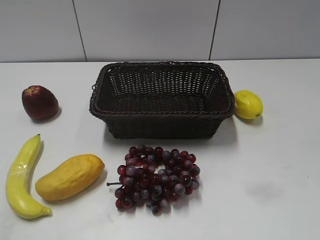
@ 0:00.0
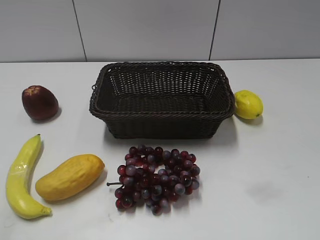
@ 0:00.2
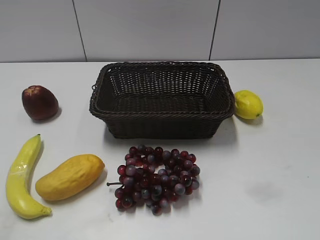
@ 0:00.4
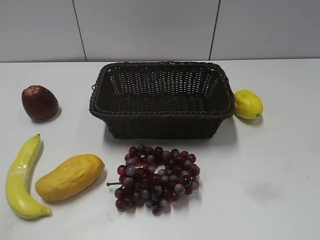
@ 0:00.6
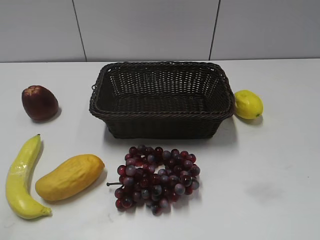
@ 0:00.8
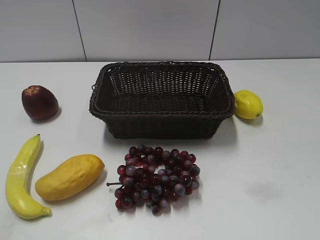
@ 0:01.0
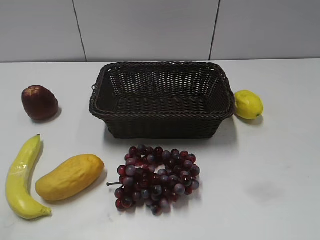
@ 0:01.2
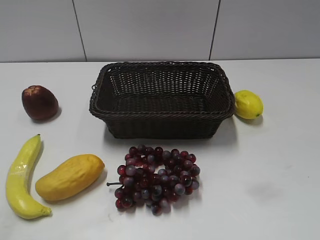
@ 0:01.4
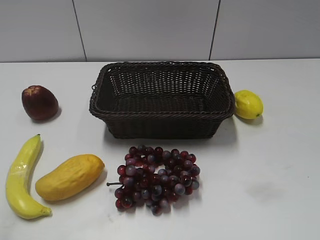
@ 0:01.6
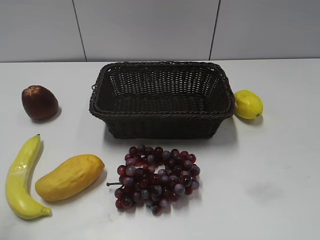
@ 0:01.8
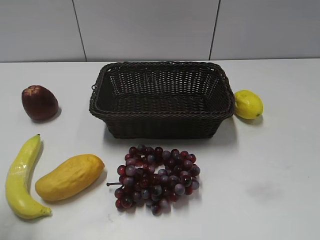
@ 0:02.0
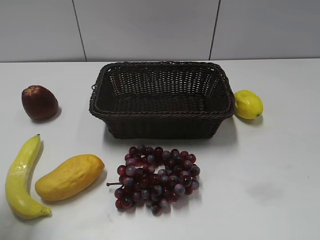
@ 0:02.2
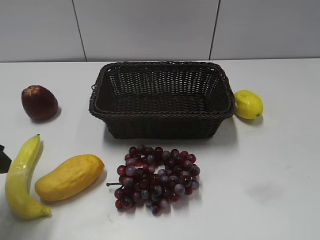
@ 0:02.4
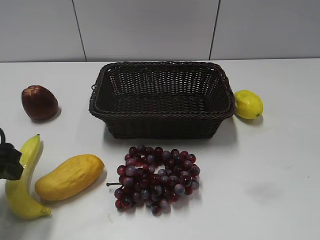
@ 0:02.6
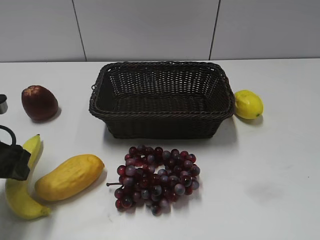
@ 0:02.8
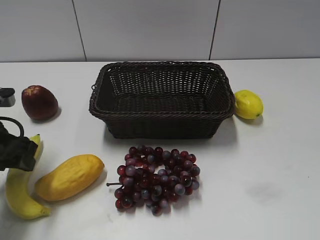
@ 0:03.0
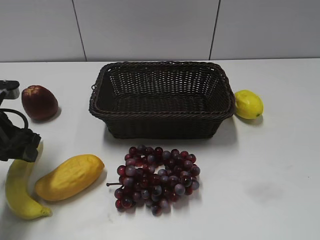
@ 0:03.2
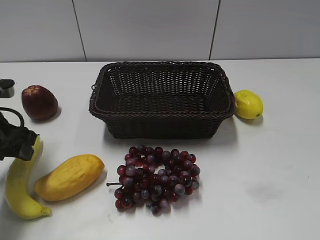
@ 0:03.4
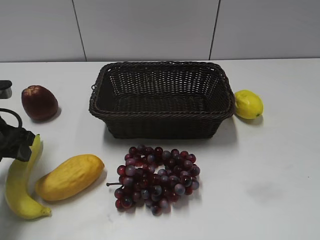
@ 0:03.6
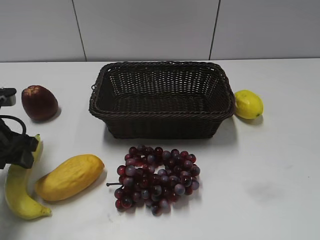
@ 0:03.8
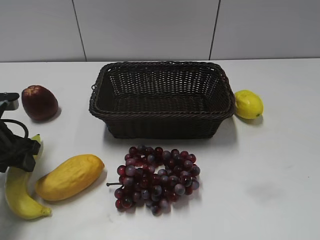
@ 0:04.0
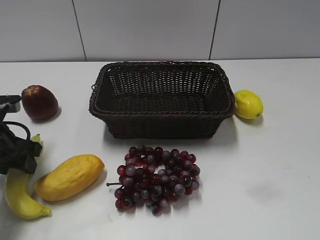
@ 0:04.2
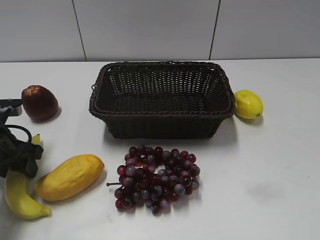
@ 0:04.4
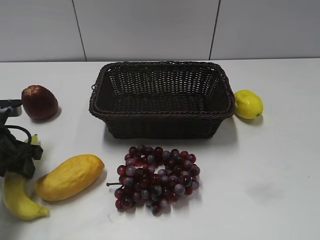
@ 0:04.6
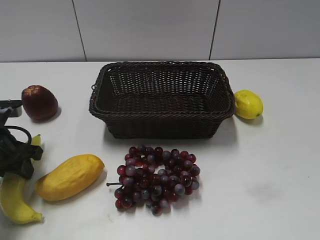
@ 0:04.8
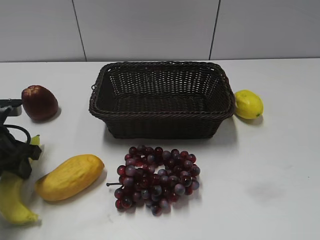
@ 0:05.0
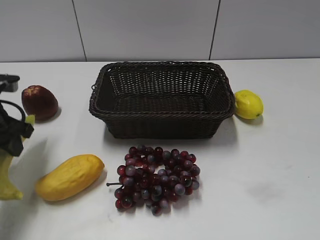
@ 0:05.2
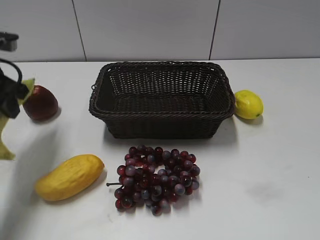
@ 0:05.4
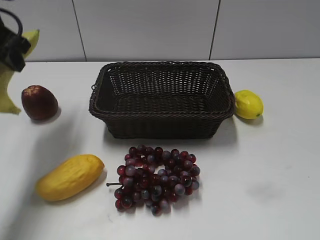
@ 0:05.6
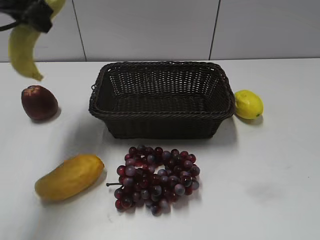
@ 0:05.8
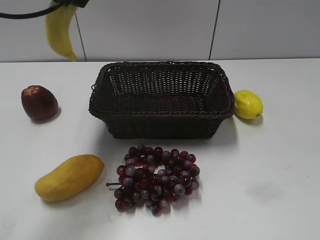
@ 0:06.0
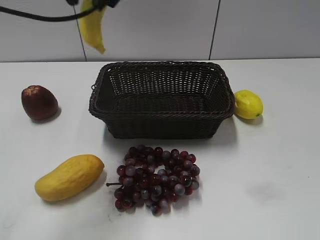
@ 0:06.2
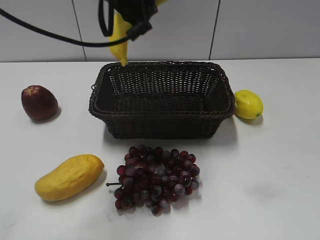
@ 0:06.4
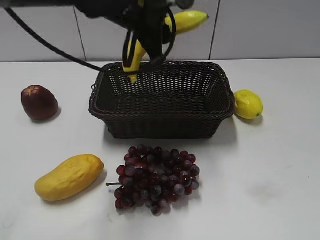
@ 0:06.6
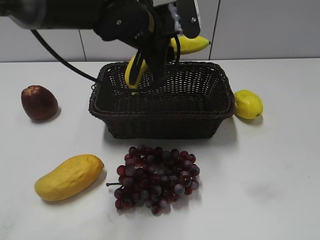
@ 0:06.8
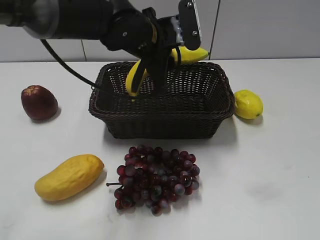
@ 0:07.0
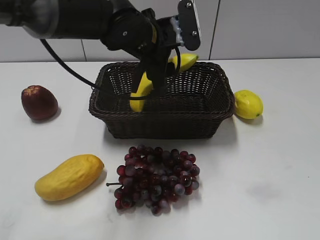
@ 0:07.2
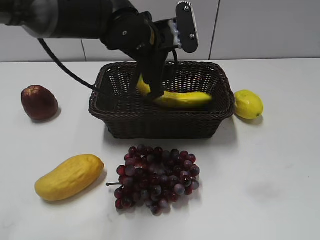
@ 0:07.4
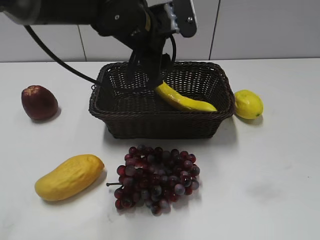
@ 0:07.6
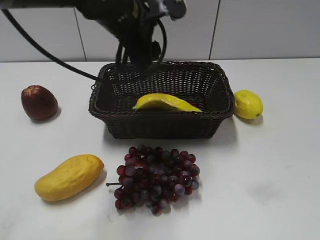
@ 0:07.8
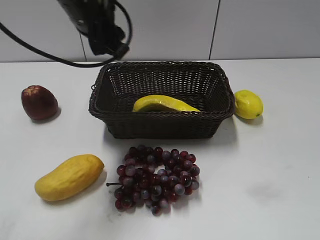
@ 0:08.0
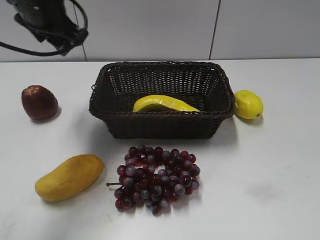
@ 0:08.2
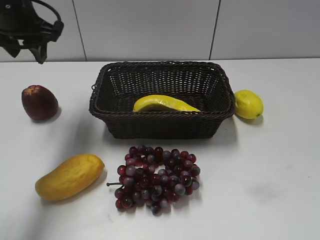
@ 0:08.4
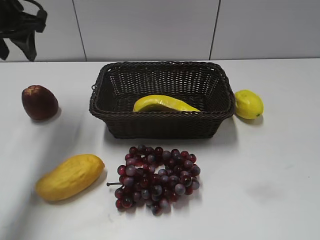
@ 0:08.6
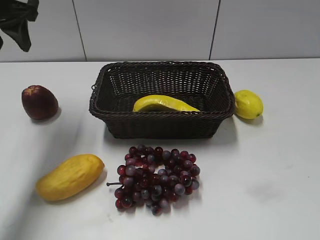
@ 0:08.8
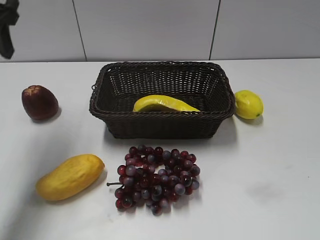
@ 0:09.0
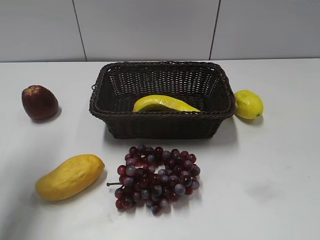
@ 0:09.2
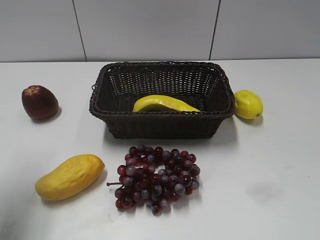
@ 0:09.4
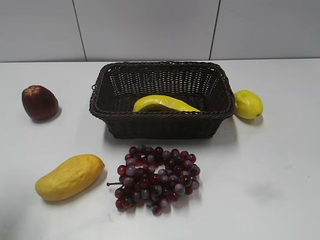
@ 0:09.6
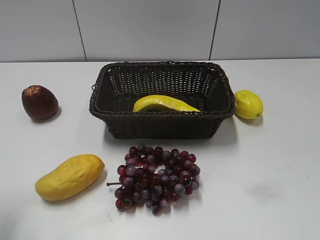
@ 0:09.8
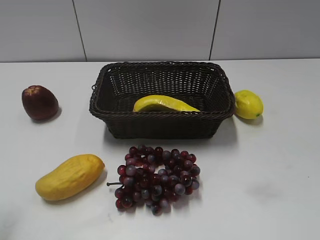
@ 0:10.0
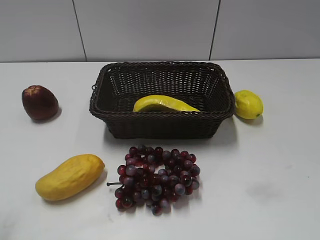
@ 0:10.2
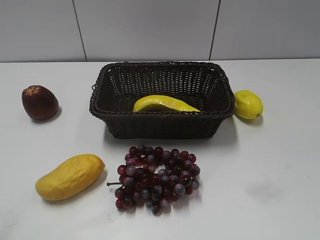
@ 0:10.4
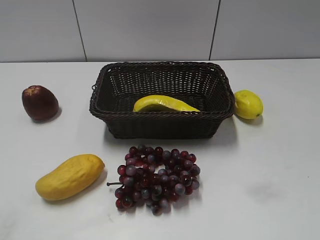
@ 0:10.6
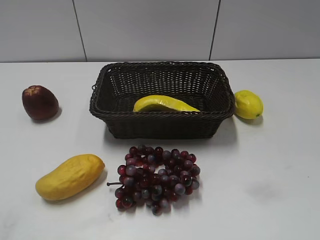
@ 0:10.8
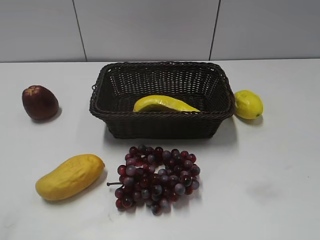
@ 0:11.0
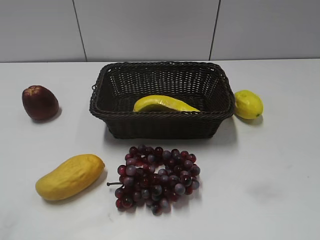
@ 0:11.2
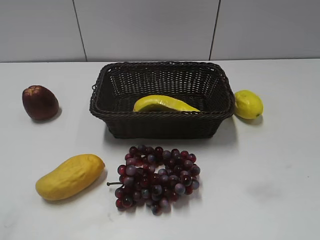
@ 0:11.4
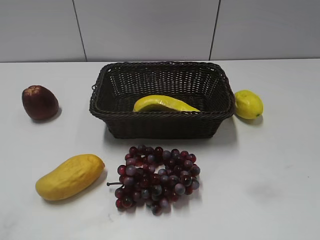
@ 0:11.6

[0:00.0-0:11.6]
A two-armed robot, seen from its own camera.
Step, 0:02.4 to 0:04.6: Grasp the banana with left gripper.
Step, 0:04.8 to 0:07.6: Place the banana in the basket with left gripper.
0:01.4 to 0:02.8: The left gripper travels forward and downward by approximately 25 cm.
0:02.8 to 0:04.4: The left gripper shifts by about 5 cm.
0:04.4 to 0:05.8: The left gripper moves upward and forward, approximately 25 cm, and closes up.
0:05.8 to 0:07.2: The left gripper shifts roughly 20 cm to the right and downward, and opens its fingers.
0:07.2 to 0:08.8: The left gripper moves to the left, roughly 25 cm.
0:08.8 to 0:10.2: The left gripper moves backward, roughly 30 cm.
